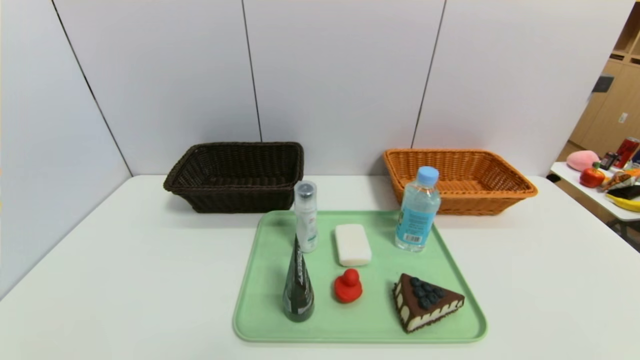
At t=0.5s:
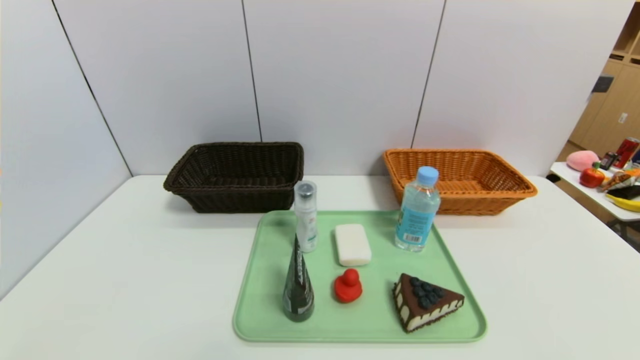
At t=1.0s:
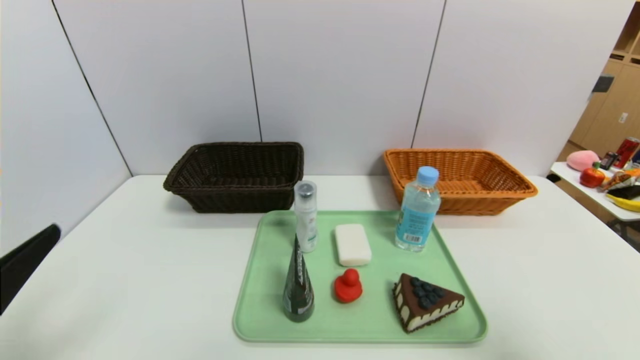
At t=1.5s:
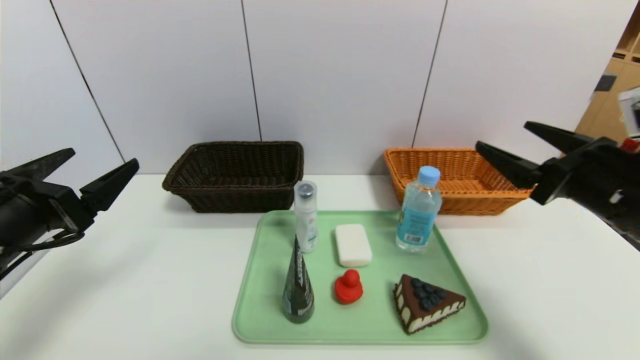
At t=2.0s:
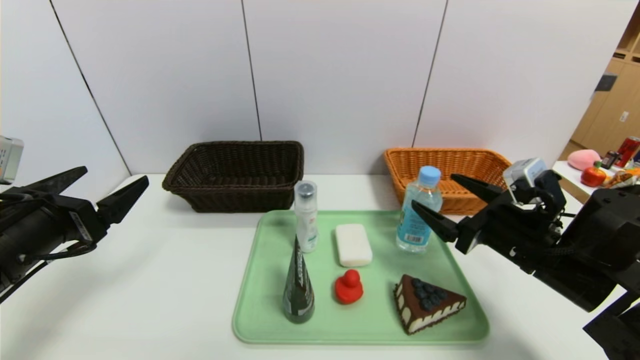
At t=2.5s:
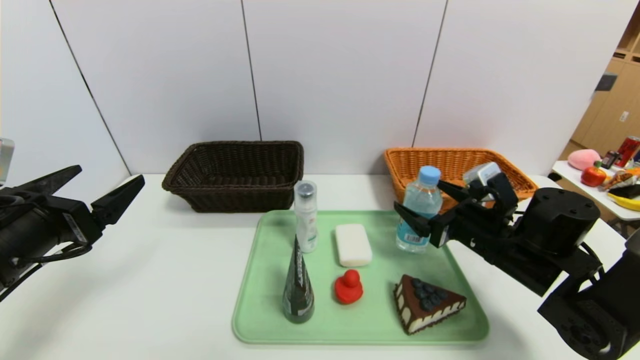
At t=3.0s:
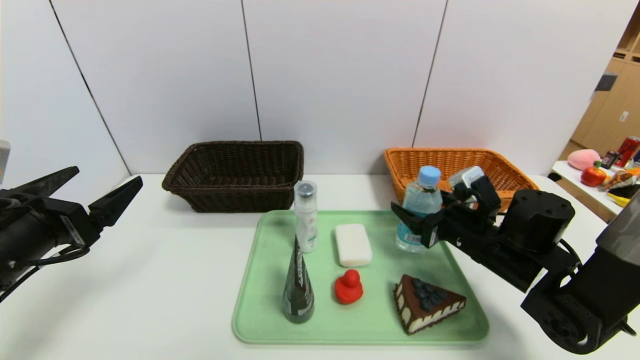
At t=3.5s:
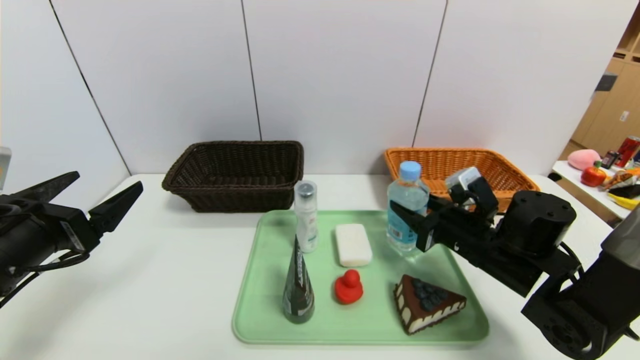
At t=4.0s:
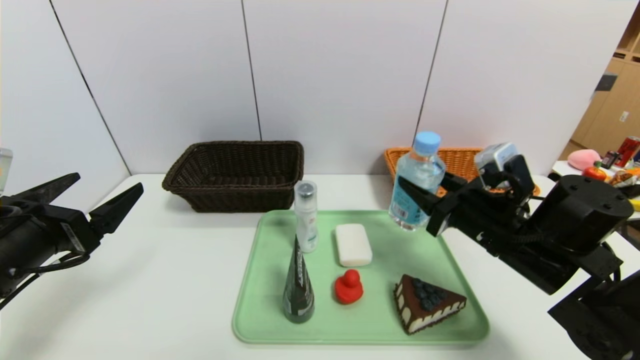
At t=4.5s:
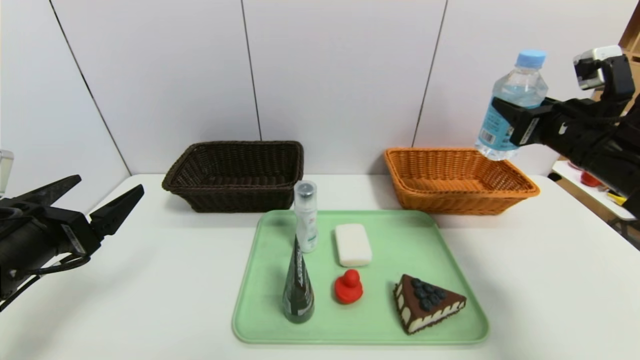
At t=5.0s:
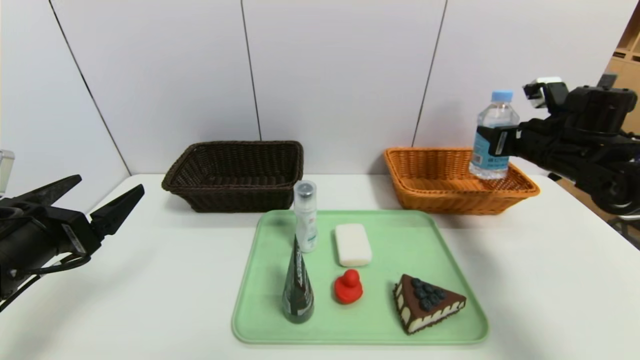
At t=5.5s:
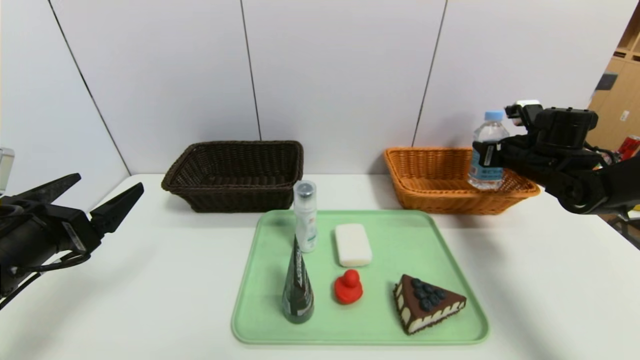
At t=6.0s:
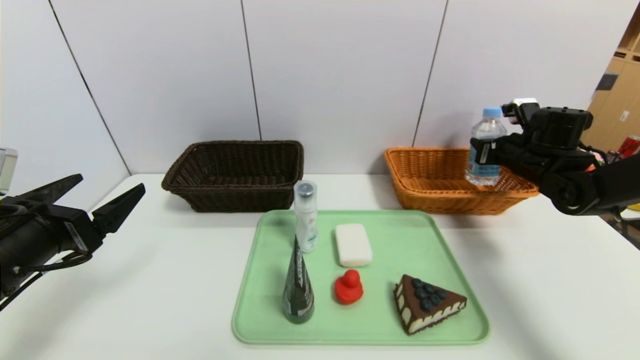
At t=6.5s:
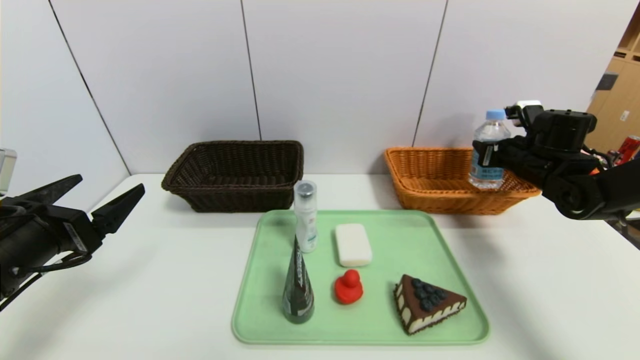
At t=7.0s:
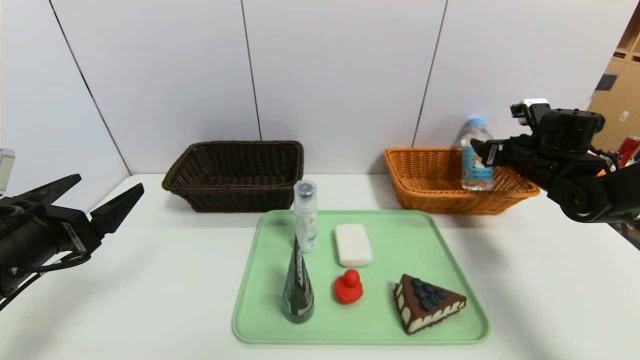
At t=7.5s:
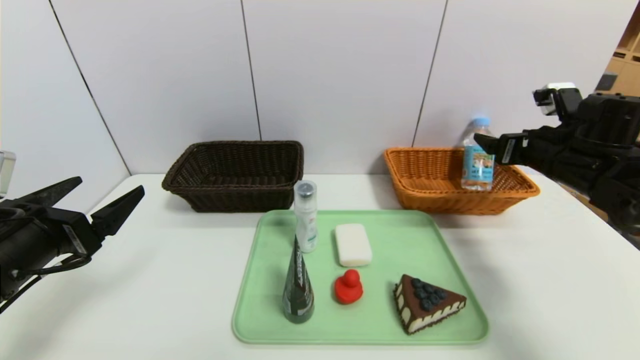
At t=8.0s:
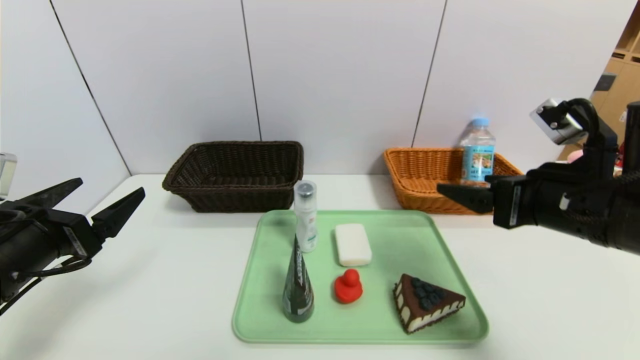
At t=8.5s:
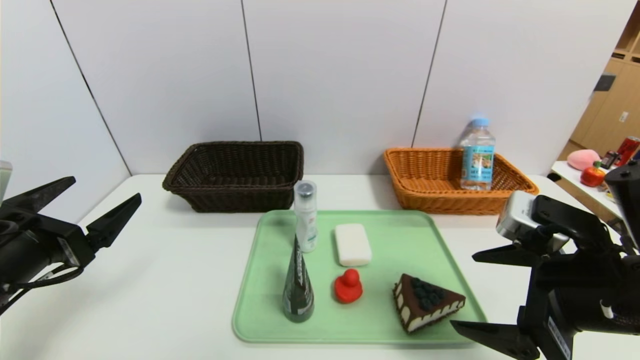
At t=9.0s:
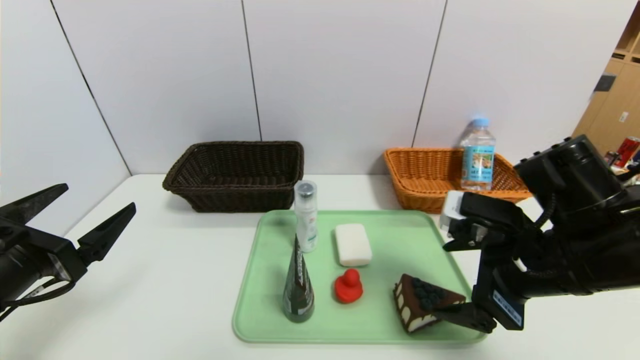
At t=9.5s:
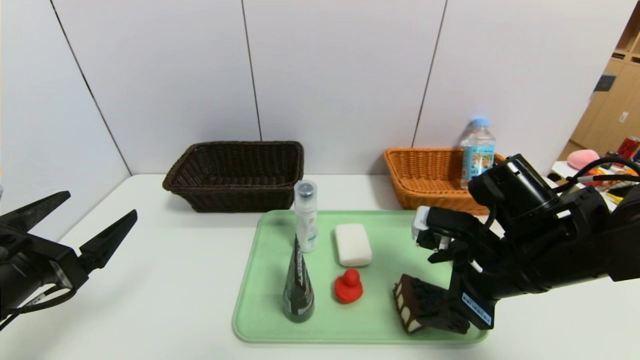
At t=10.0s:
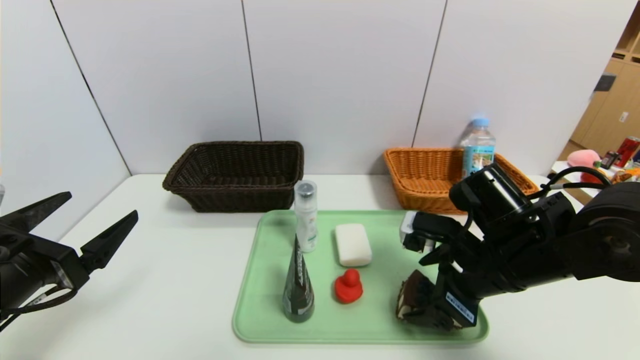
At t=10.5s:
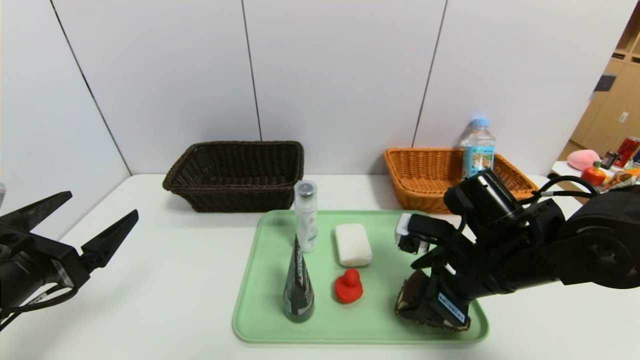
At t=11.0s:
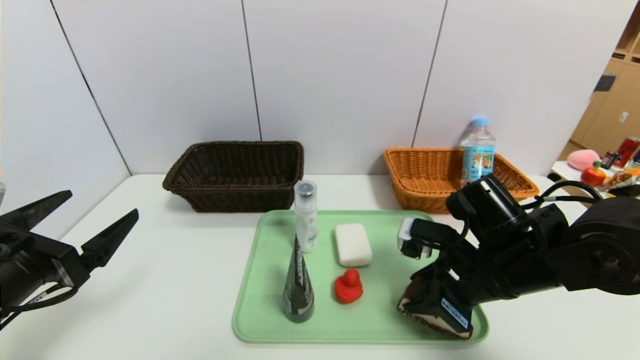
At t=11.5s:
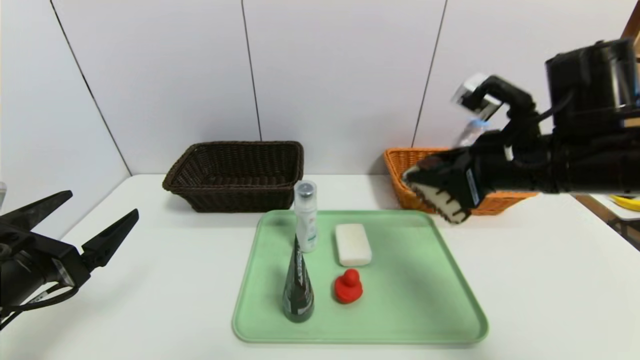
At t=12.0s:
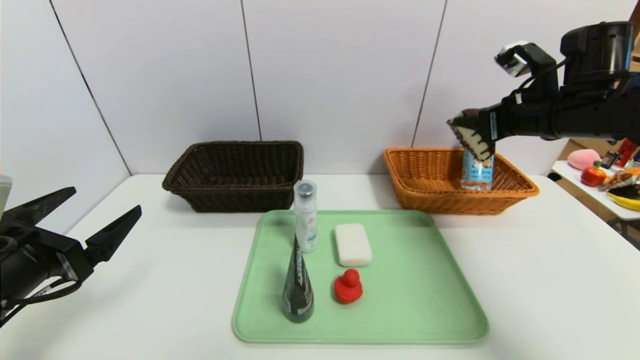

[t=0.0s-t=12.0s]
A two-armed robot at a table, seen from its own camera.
Task of the whole recording: place the food in the right basket with the right gripper, and place the non food items in the left basket with the left gripper.
Step, t=0.0s to t=7.0s: Grasp the soda water and put it in the right basket.
t=0.0s to t=2.0s: The left gripper goes approximately 25 cm forward and upward, while the right gripper travels forward by some 25 cm.
t=2.0s to t=4.0s: The right gripper closes.
t=4.0s to t=6.0s: The right gripper travels forward and to the right by approximately 20 cm.
t=6.0s to t=8.0s: The right gripper moves backward and to the left, about 25 cm, and opens up.
t=8.0s to t=10.0s: The right gripper is displaced downward by roughly 10 cm.
t=10.0s to t=12.0s: The right gripper travels upward, forward and to the right by roughly 20 cm, and closes up.

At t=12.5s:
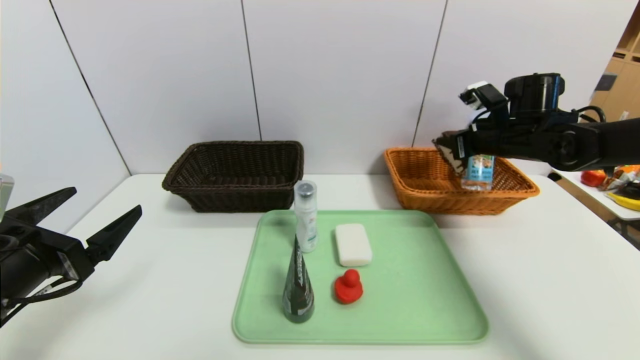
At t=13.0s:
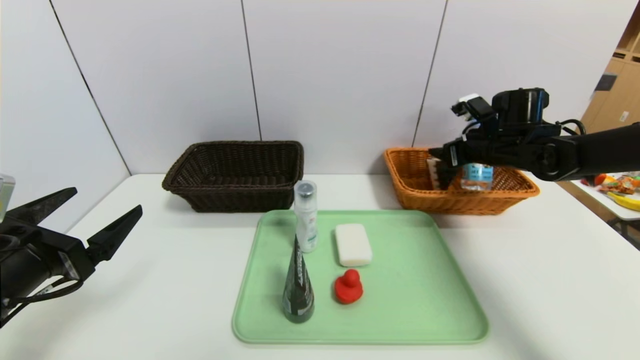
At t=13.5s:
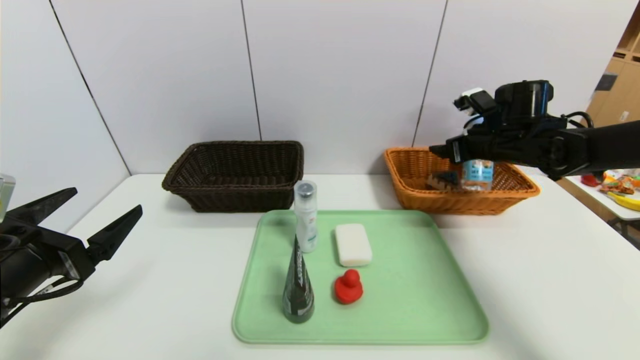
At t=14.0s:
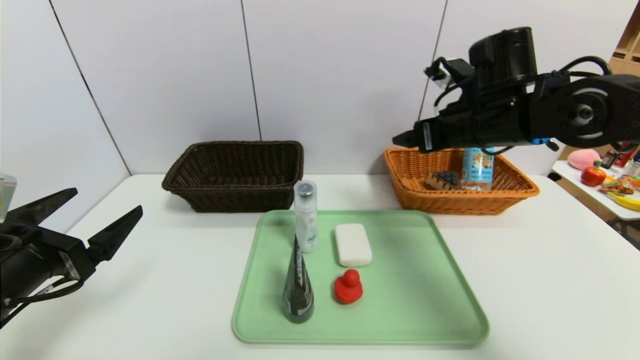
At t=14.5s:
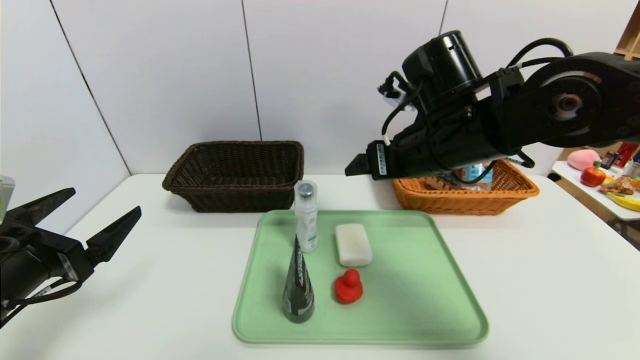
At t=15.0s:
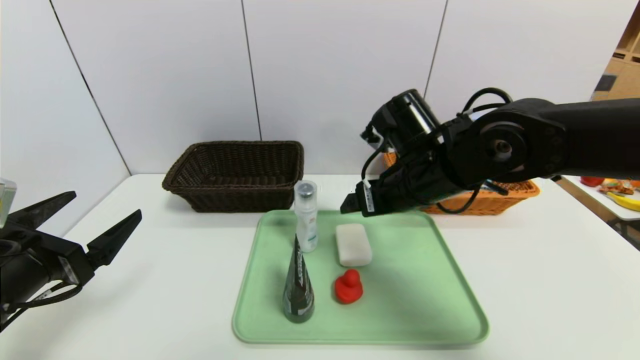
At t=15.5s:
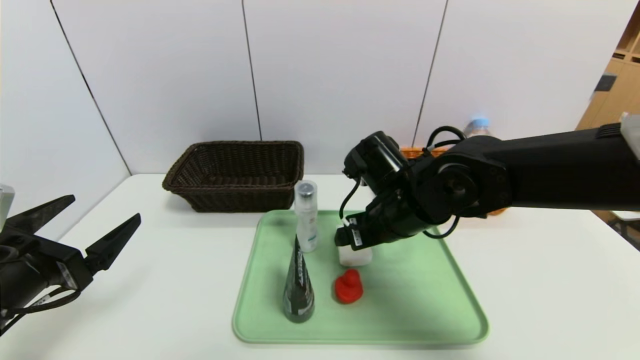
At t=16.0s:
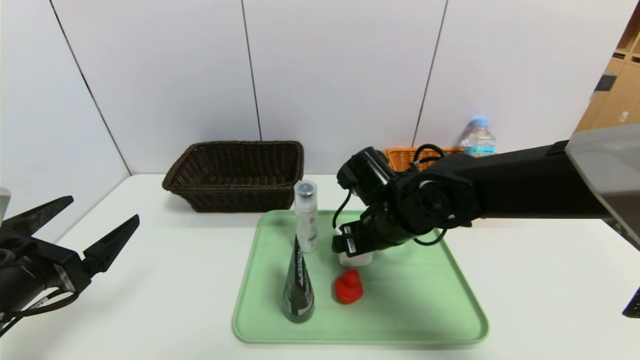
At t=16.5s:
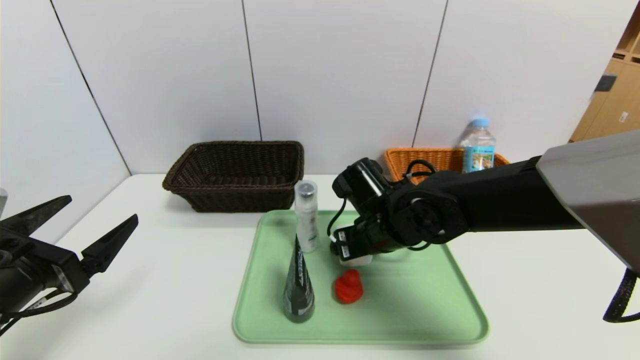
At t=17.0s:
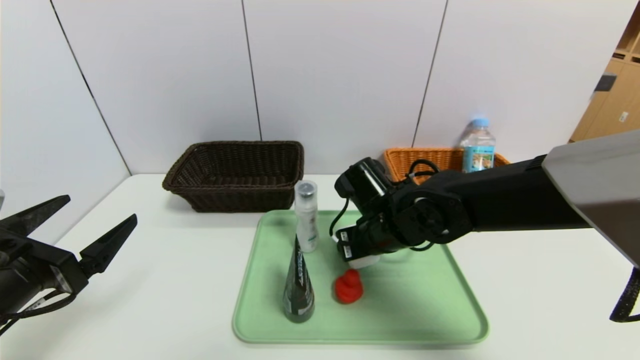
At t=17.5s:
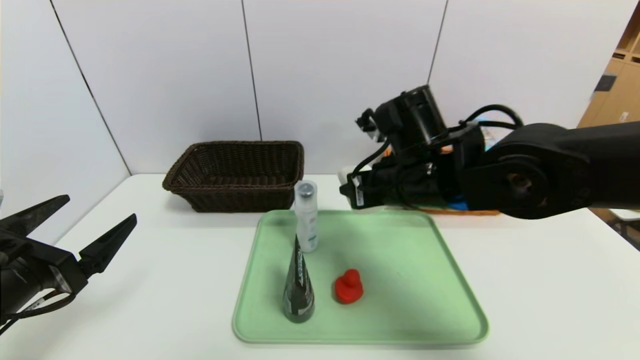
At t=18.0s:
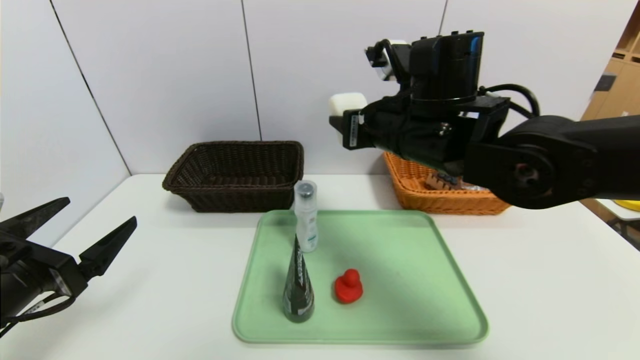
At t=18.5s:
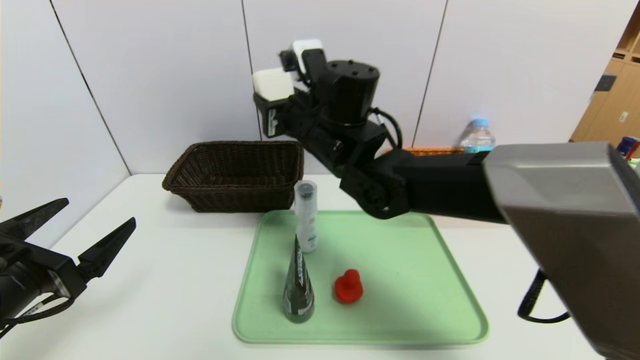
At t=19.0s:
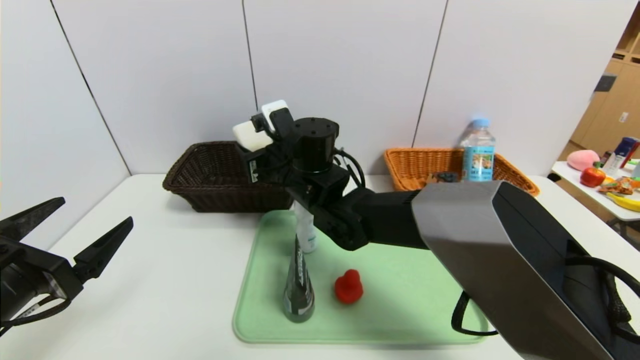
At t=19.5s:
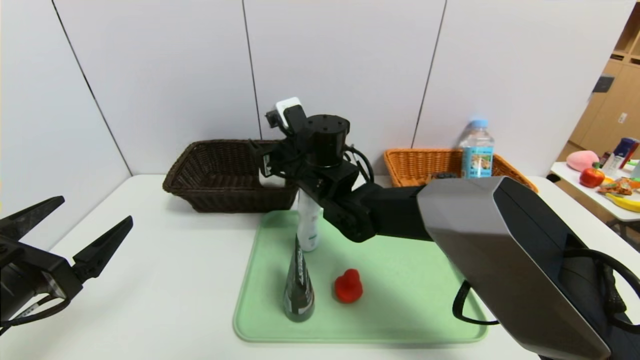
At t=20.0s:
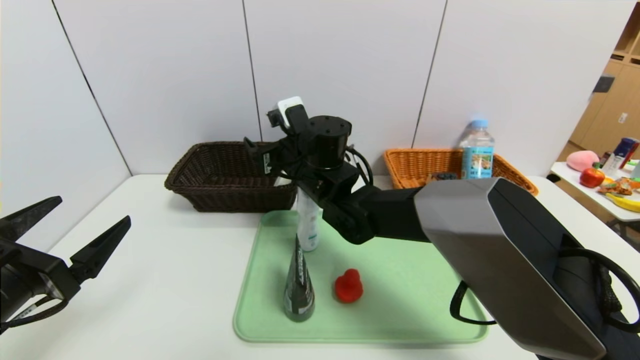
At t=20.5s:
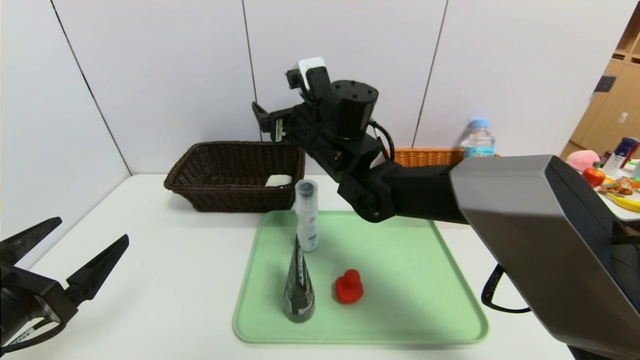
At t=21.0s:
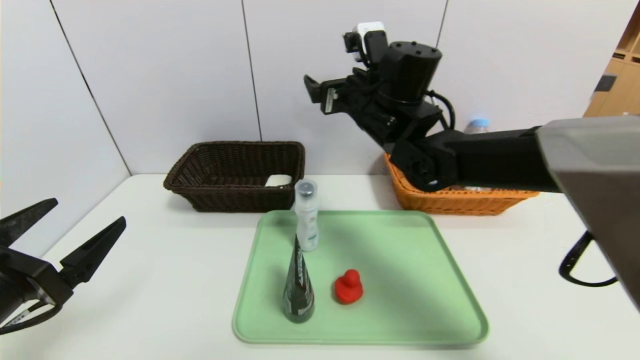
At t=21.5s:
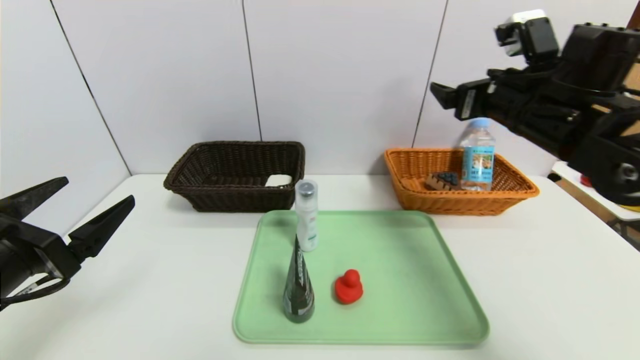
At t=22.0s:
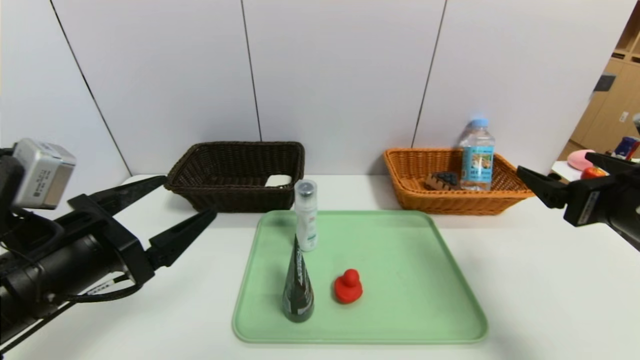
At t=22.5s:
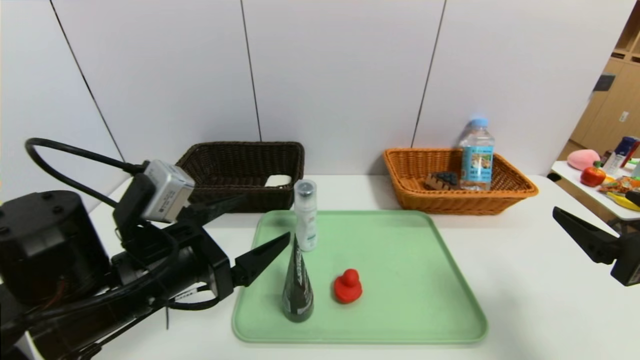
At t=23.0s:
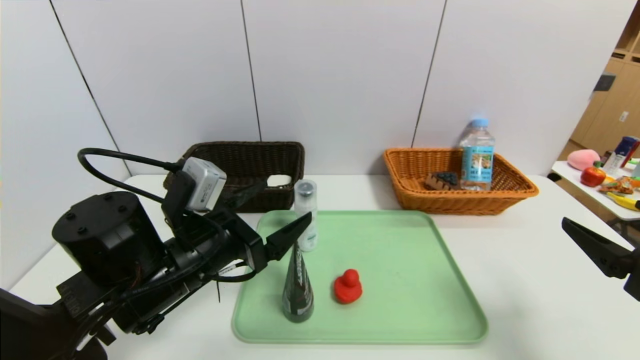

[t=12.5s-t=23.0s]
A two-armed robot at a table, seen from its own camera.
Task of the whole recording: place the food in the right basket with the right gripper, and place the non food items in the left basket with the left gripper.
t=12.5s to t=14.5s: The right gripper is displaced to the left and backward by roughly 20 cm, and opens up.
t=14.5s to t=16.5s: The right gripper goes approximately 15 cm downward.
t=16.5s to t=19.0s: The right gripper heads to the left, forward and upward, covering some 15 cm, and closes its fingers.
t=19.0s to t=21.0s: The right gripper goes approximately 15 cm to the right and upward, and opens its fingers.
t=21.0s to t=23.0s: The right gripper goes roughly 35 cm backward and to the right, while the left gripper is displaced to the right and forward by roughly 15 cm.
